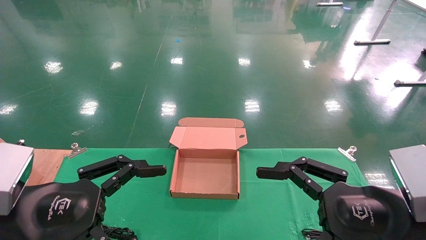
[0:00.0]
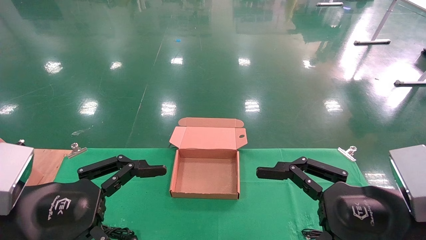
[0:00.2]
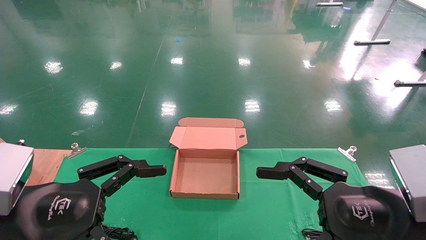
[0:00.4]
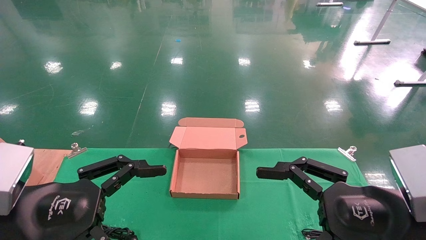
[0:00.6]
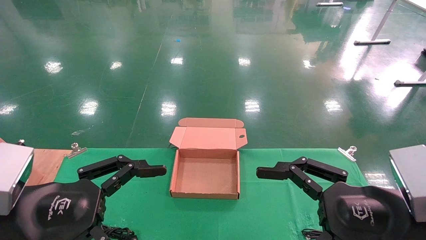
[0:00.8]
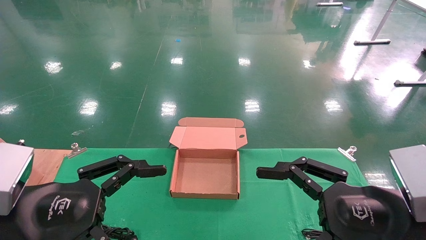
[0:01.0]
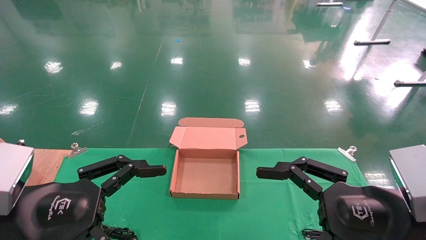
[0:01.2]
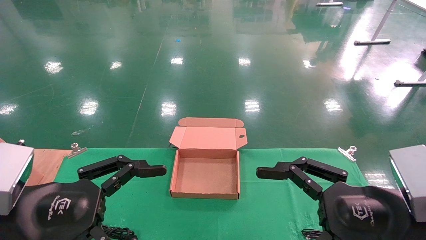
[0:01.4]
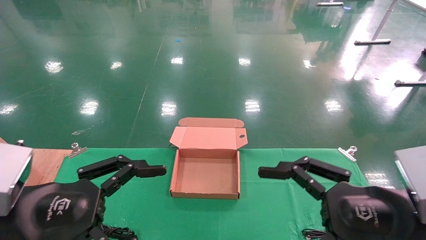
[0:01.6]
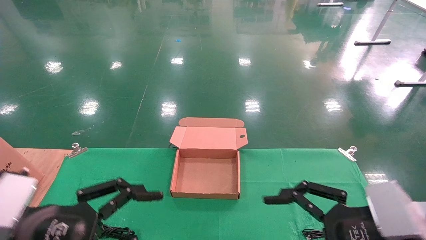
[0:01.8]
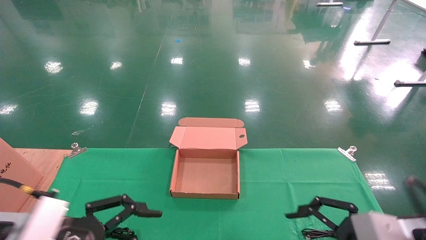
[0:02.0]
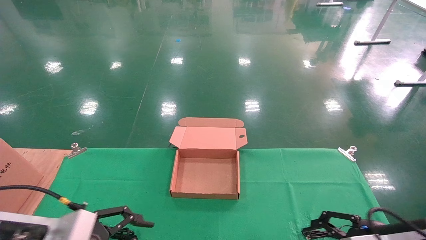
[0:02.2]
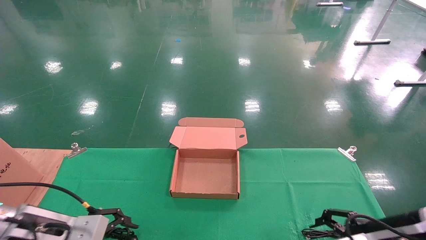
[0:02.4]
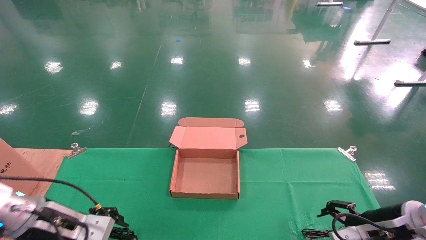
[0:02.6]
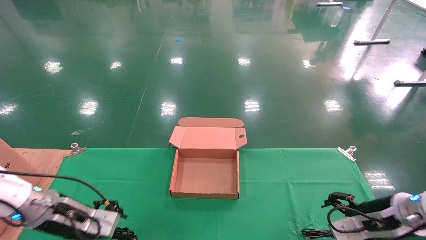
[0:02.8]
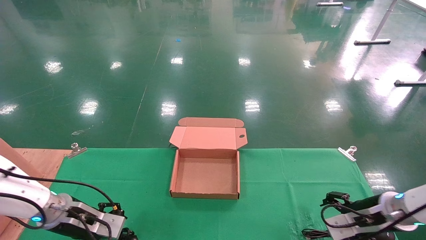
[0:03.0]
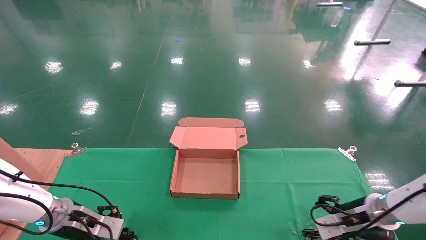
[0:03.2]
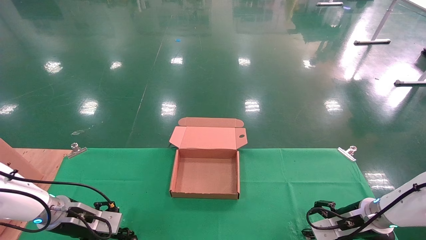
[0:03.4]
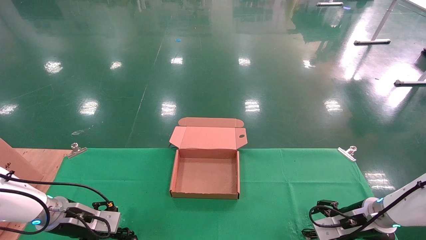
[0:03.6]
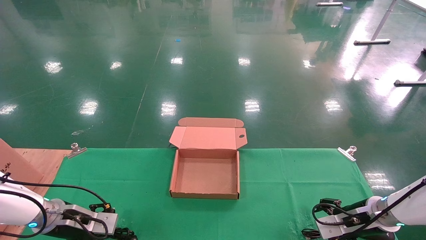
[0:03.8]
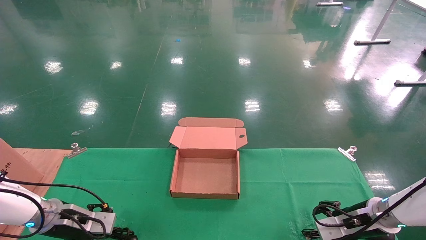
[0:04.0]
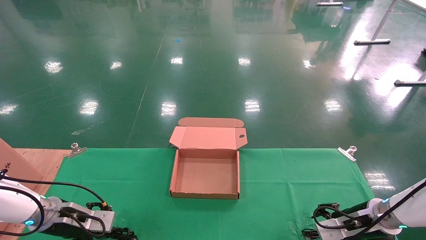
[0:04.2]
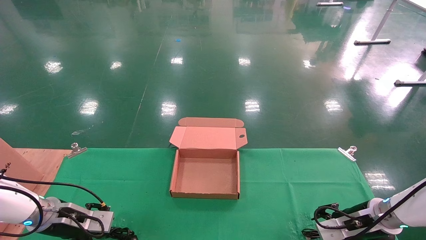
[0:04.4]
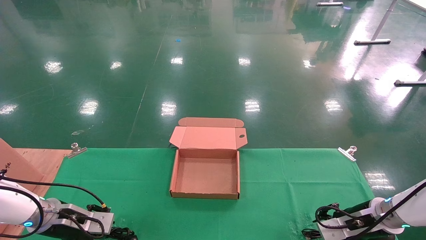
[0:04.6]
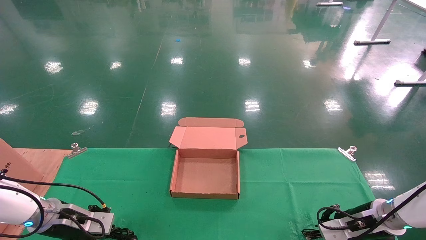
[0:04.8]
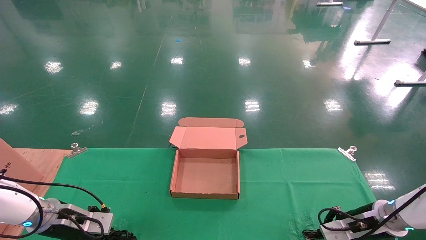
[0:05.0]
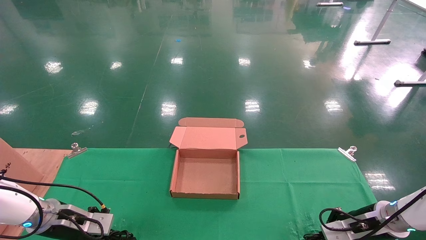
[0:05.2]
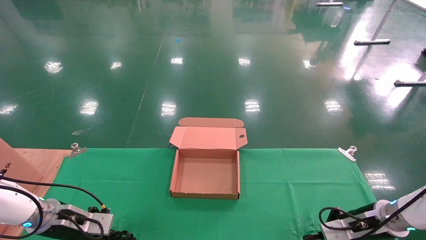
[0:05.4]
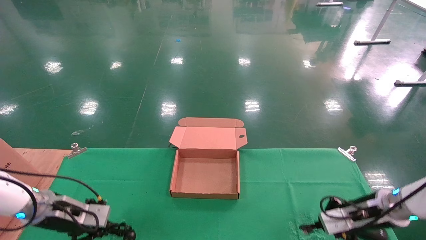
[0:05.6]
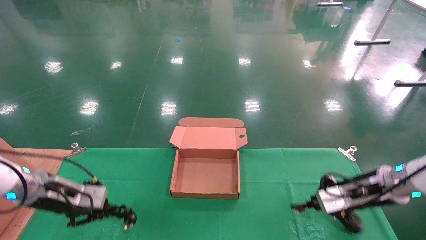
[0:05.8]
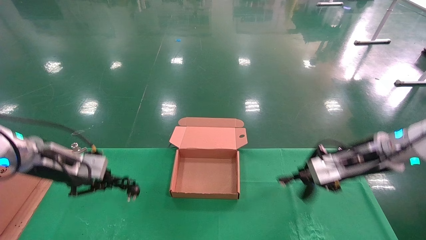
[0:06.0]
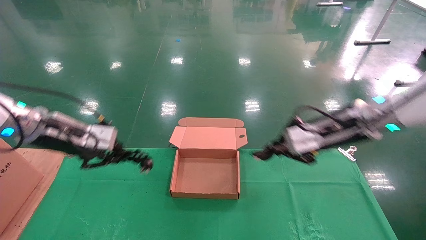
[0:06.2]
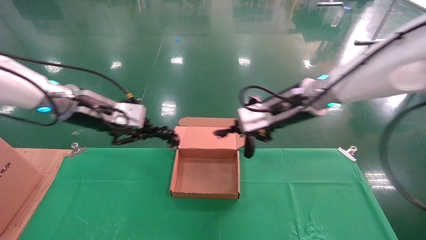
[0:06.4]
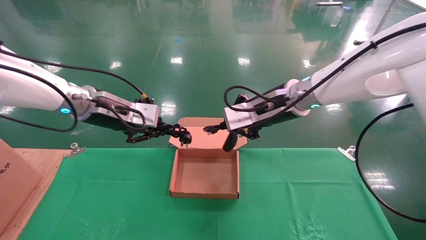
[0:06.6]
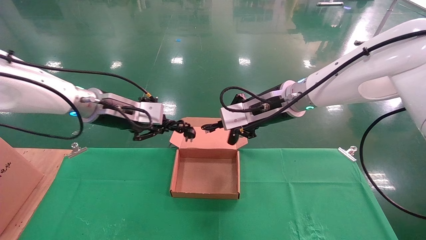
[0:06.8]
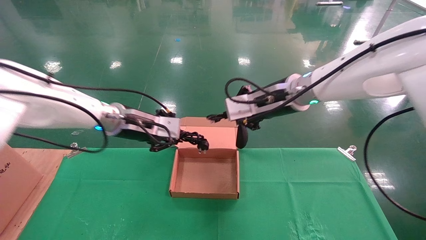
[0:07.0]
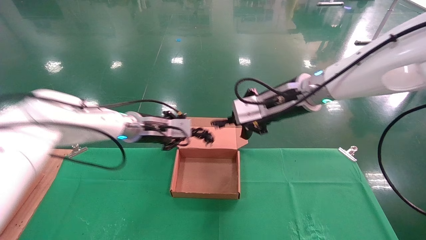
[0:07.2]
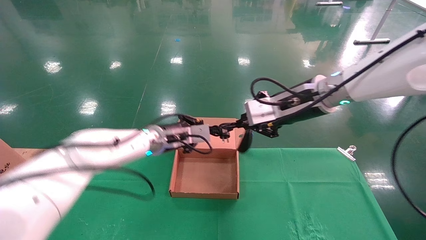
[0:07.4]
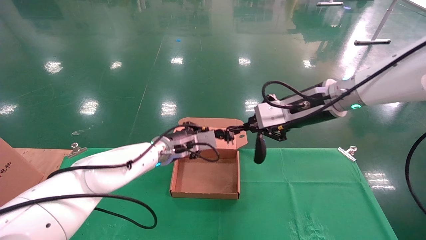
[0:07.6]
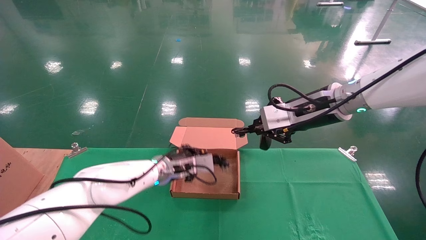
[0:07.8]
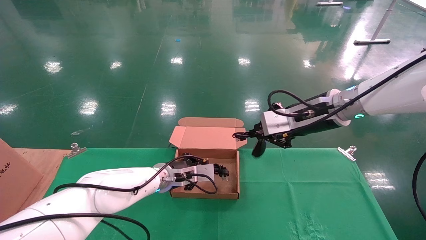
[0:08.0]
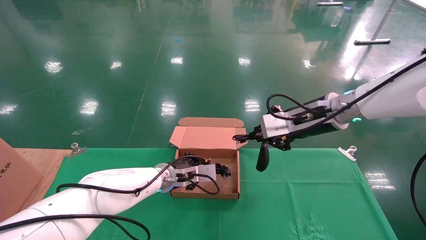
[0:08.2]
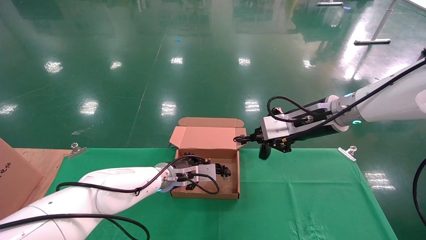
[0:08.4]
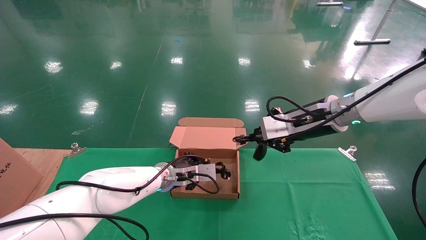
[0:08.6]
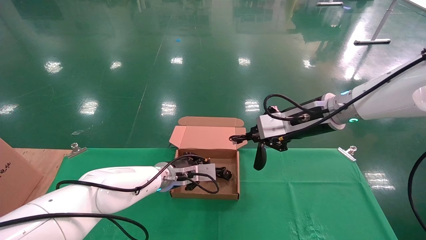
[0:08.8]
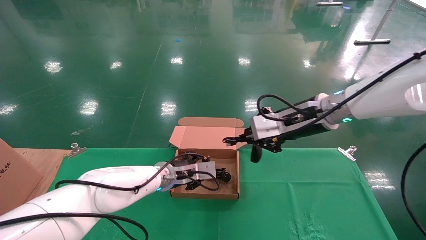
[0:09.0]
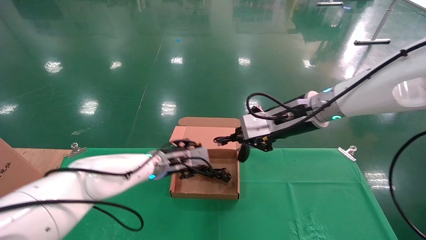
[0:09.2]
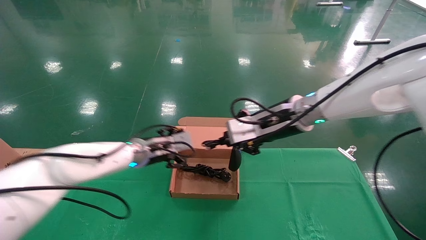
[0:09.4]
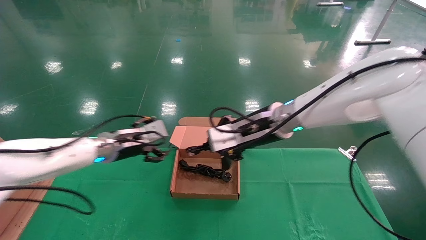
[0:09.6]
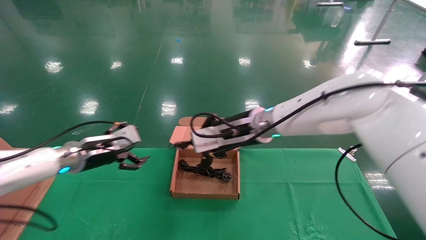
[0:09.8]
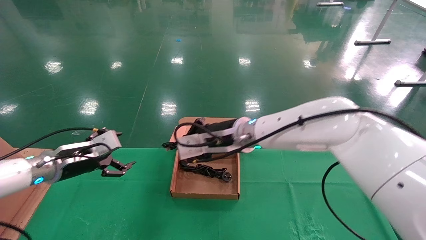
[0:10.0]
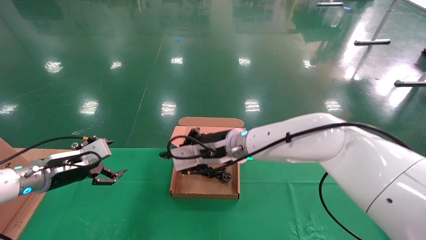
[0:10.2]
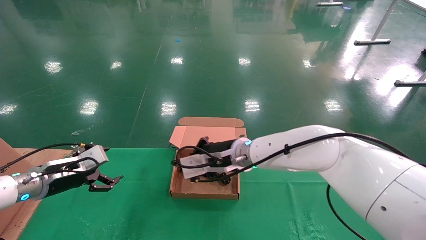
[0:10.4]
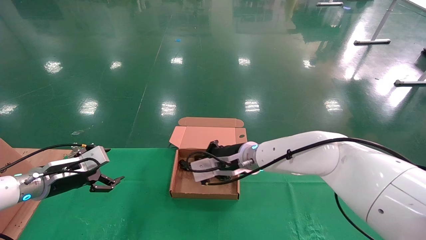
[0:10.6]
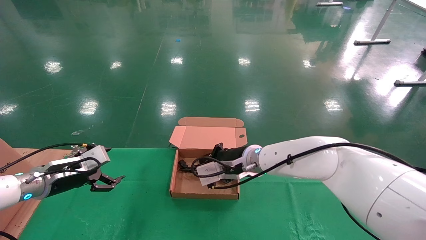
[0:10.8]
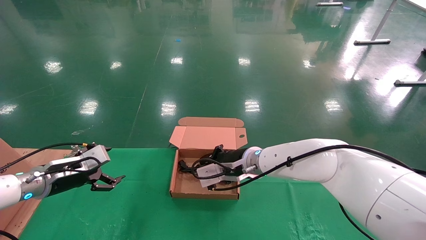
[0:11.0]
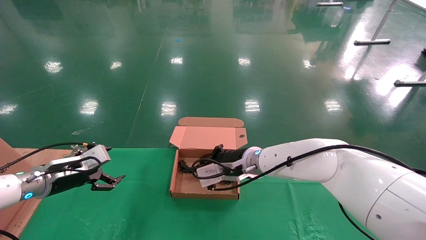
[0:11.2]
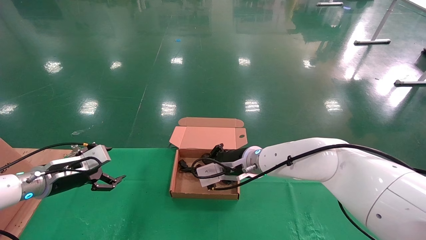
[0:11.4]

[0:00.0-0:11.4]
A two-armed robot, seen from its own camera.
Step, 0:02.8 to 0:06.2: Grab and lift both the mouse and power cord from the accessory packaging area at the same time.
0:00.0 to 0:01.4: Both grippers stay about where they are.
0:01.4 to 0:02.8: The right gripper shifts some 20 cm forward, downward and to the right. Meanwhile the left gripper travels forward and downward by approximately 20 cm.
0:02.8 to 0:04.2: The left gripper moves approximately 5 cm; the right gripper travels forward and downward by about 5 cm.
0:04.2 to 0:05.6: The left gripper closes up; the right gripper closes up.
0:05.6 to 0:07.2: The right gripper goes about 30 cm upward and to the left. Meanwhile the left gripper travels to the right, upward and forward by roughly 25 cm.
0:07.2 to 0:08.6: The left gripper heads downward and to the right, covering approximately 15 cm; the right gripper shifts by roughly 5 cm.
0:08.6 to 0:10.0: The two grippers go some 20 cm to the left. The left gripper opens up.
0:10.0 to 0:11.4: The right gripper is displaced downward by about 10 cm.

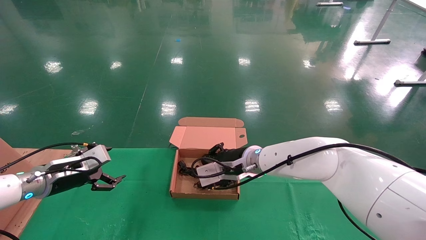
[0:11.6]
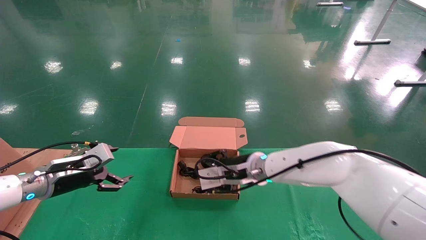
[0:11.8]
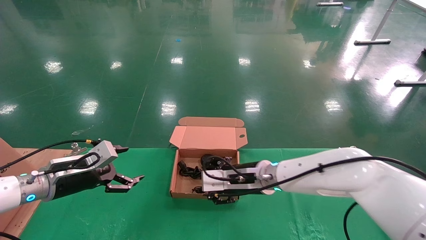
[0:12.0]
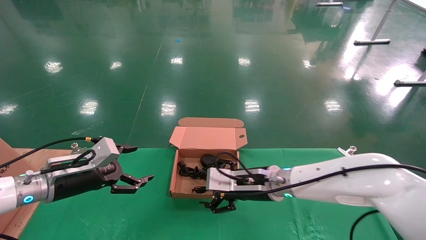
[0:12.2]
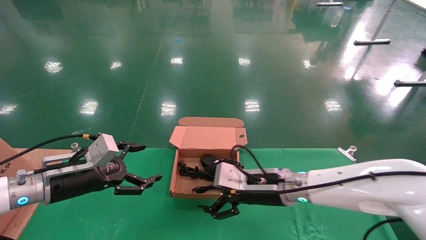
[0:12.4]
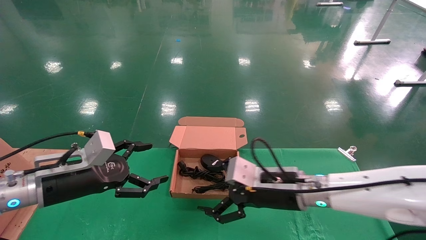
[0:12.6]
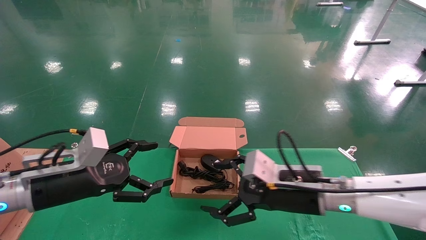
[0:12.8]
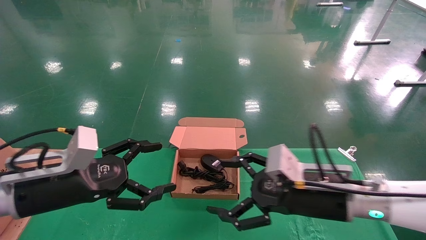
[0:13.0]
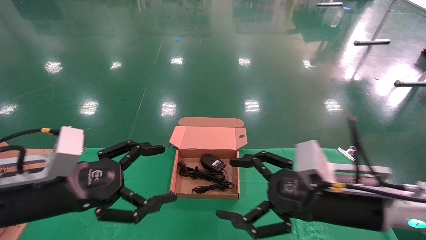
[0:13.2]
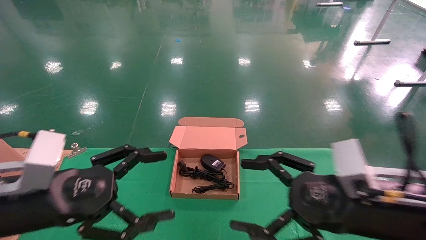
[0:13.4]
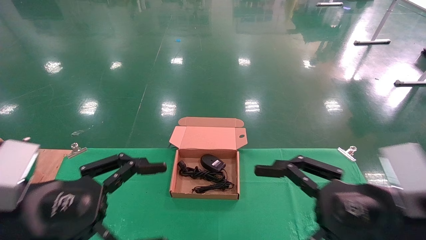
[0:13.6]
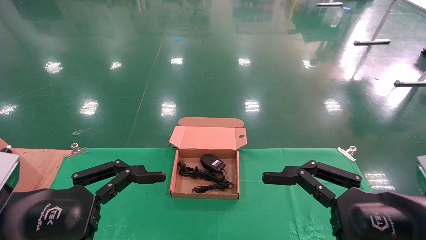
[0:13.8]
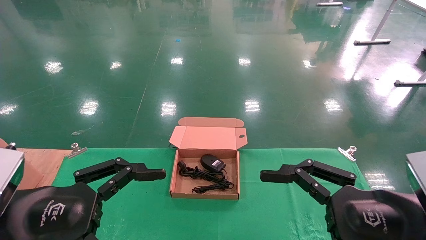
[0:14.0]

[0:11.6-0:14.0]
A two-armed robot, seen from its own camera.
0:11.6 to 0:12.8: The right gripper travels backward and to the right by some 15 cm, and opens. Meanwhile the left gripper heads backward, to the right and upward, covering some 15 cm.
0:12.8 to 0:14.0: The right gripper shifts some 20 cm backward and to the right; the left gripper travels backward by roughly 15 cm.
